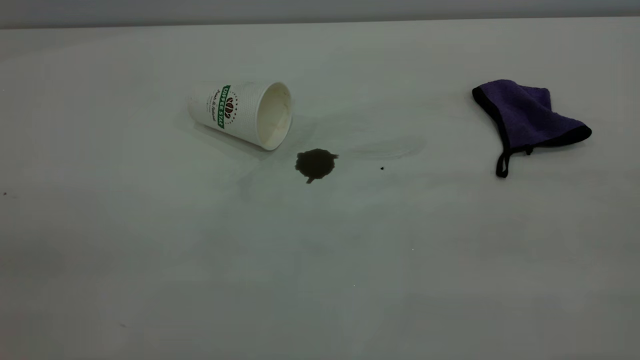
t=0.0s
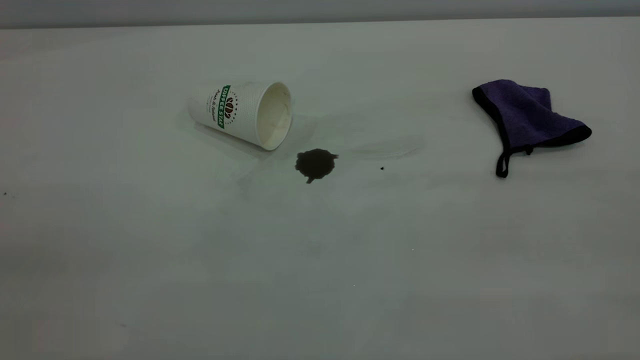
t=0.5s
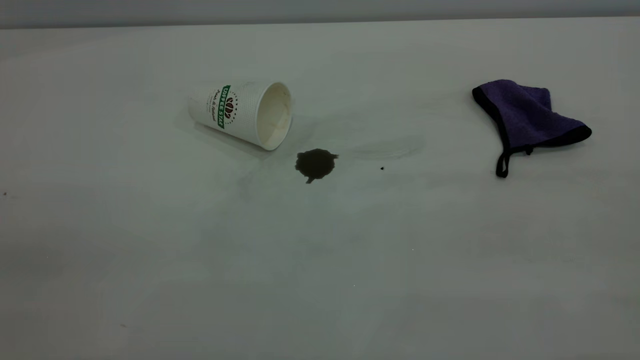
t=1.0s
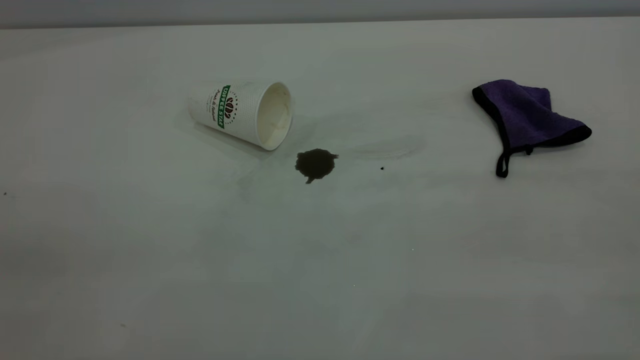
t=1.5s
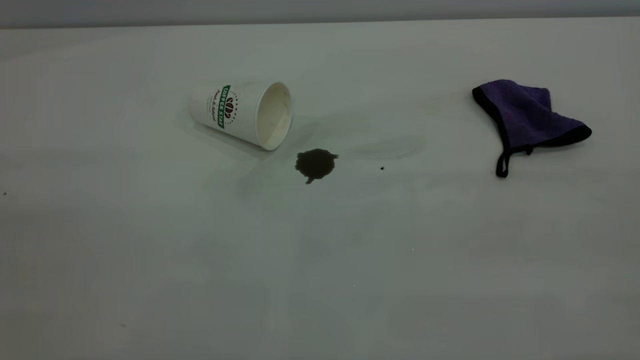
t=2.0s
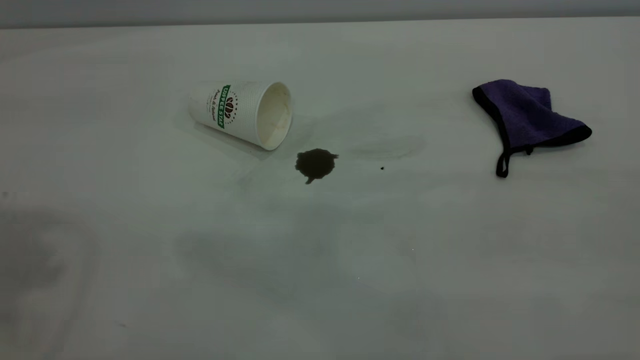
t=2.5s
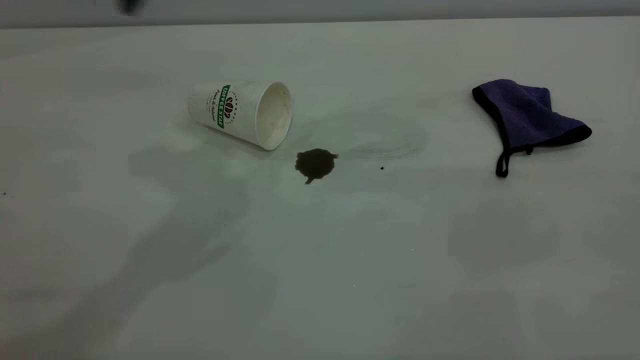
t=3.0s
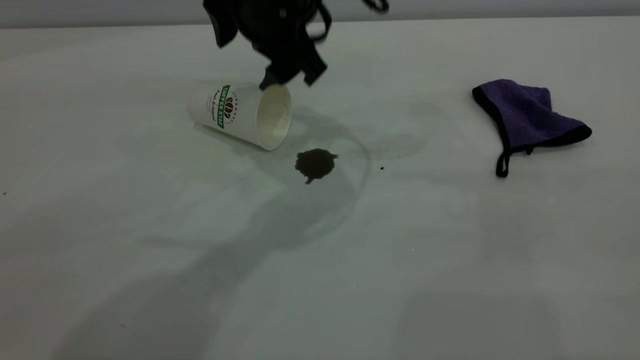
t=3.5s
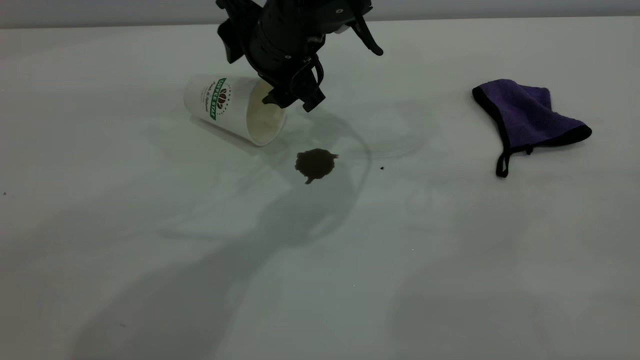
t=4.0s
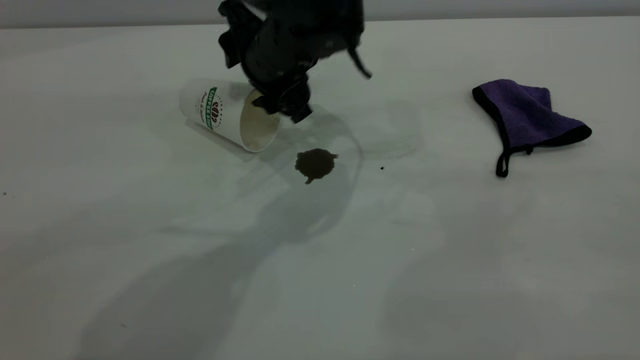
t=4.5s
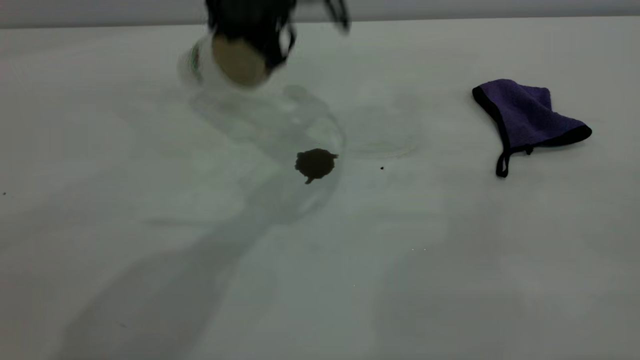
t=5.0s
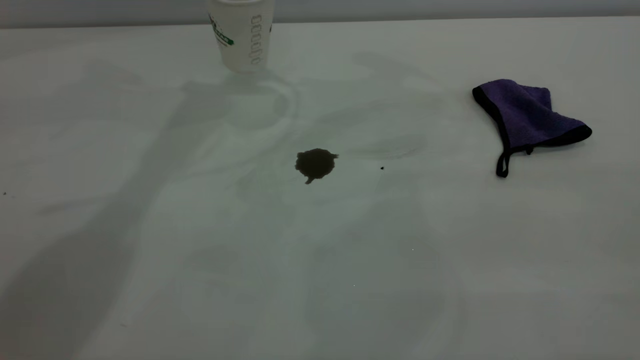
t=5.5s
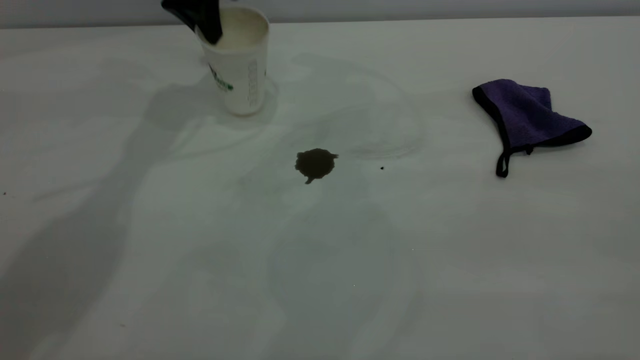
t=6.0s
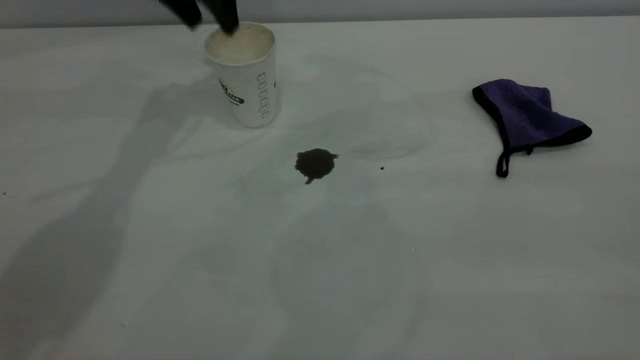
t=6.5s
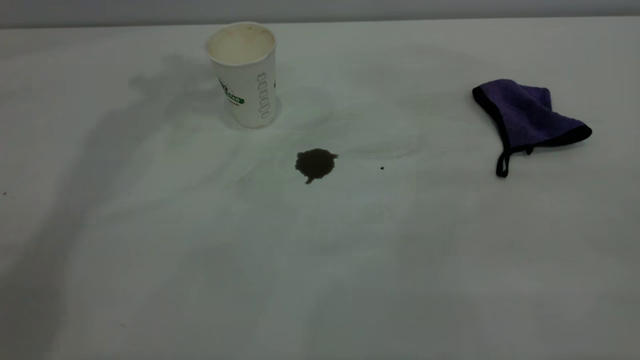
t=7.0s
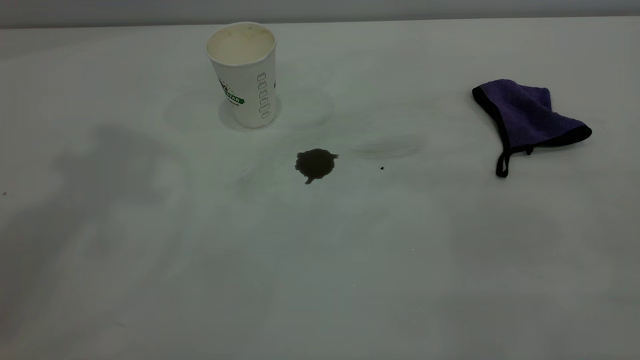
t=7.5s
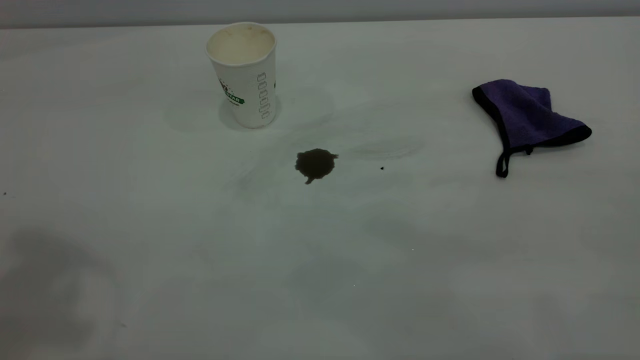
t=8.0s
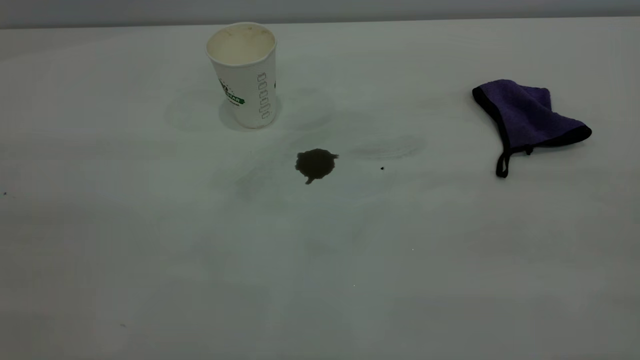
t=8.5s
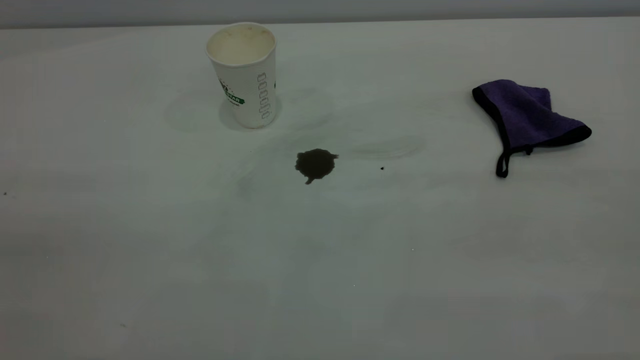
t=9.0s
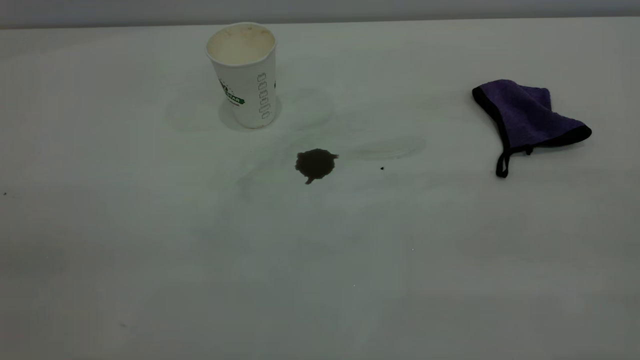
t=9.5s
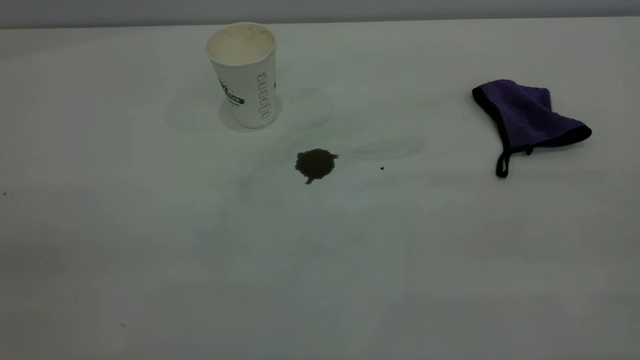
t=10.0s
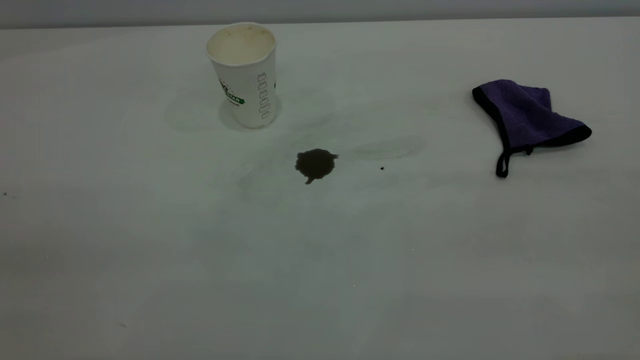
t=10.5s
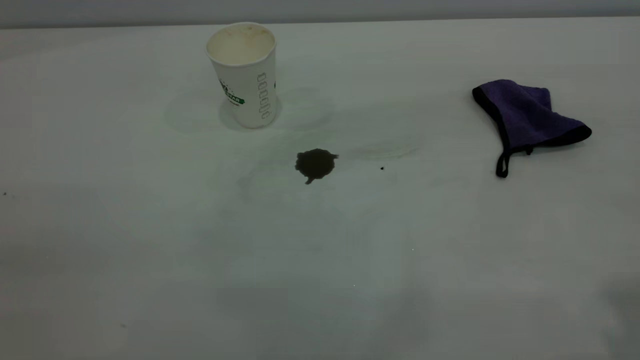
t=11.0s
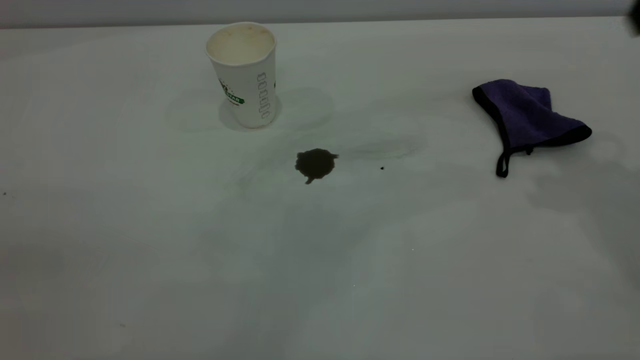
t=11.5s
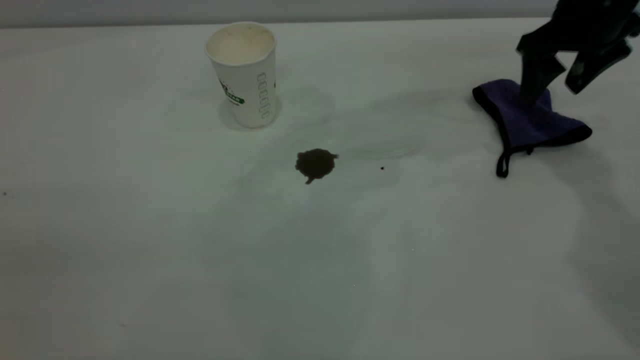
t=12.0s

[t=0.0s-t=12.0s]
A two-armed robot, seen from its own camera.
Task of the whole recording: the left gripper pick up the fallen cup and place it upright, the right gripper grasp the purple rag and wipe the coffee stain on the table, the right gripper put the purple rag back in its original position.
Step, t=0.0s to t=6.0s: Stand the paper cup upright.
t=2.0s to t=4.0s: The left gripper shifts approximately 50 cm forward, to the right and downward.
t=4.0s to t=6.0s: The left gripper shifts approximately 20 cm to the left and forward, and closes.
t=6.0s to t=8.0s: The left gripper moves backward and upward, approximately 40 cm, and opens its fingers.
t=10.0s to t=12.0s: The right gripper travels forward and downward by some 50 cm.

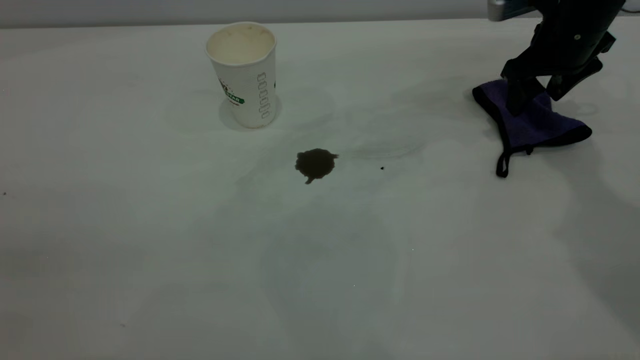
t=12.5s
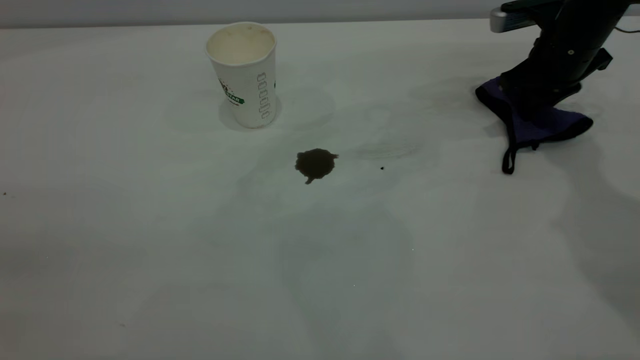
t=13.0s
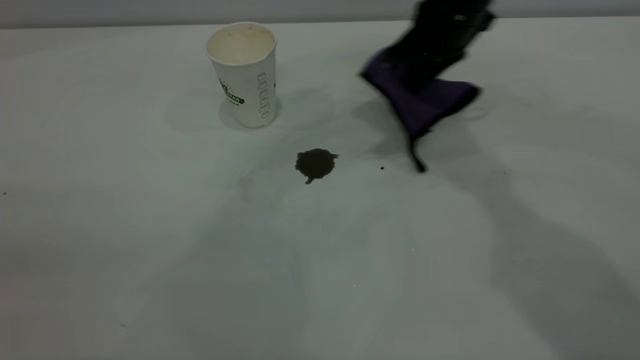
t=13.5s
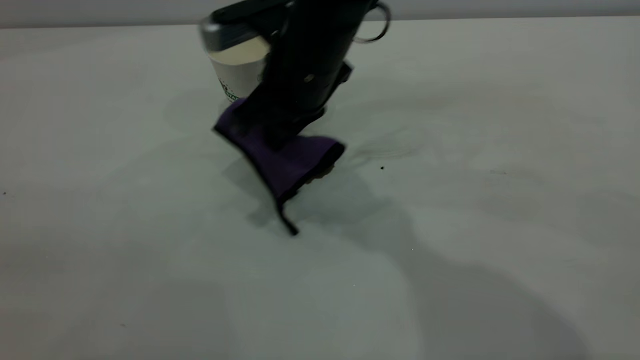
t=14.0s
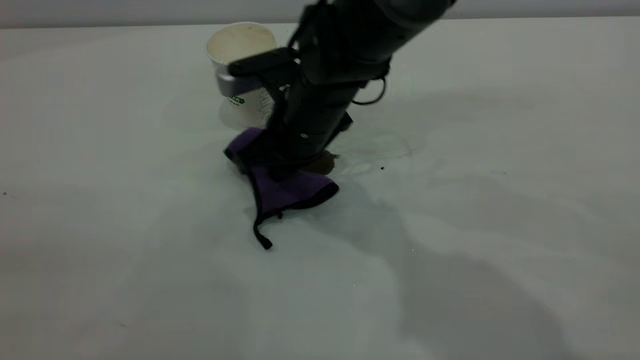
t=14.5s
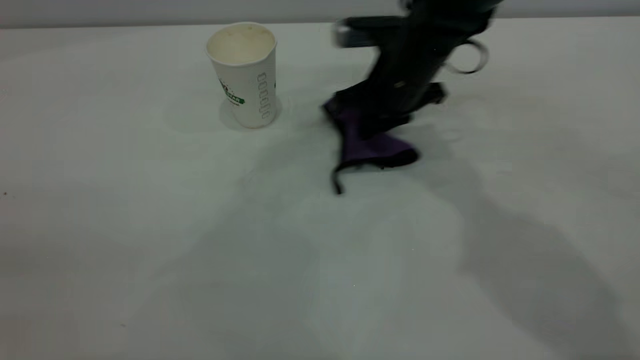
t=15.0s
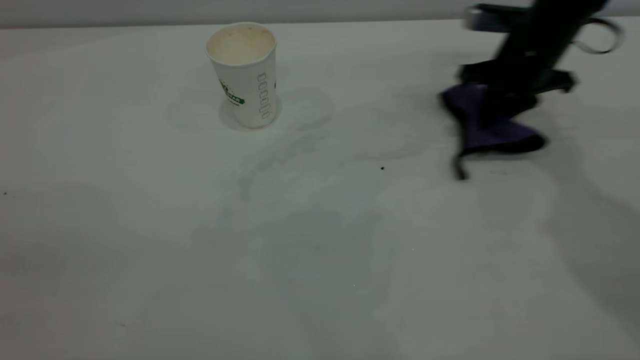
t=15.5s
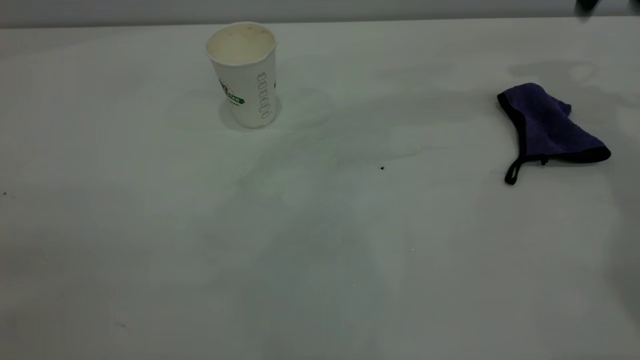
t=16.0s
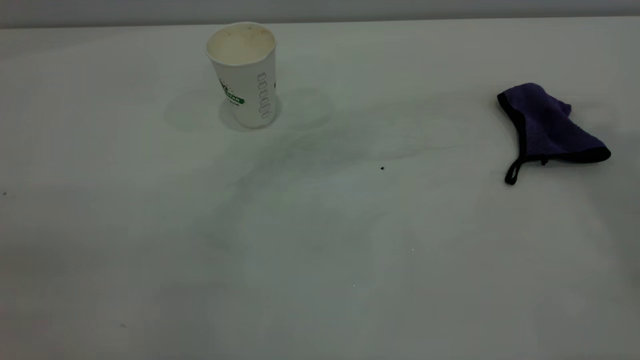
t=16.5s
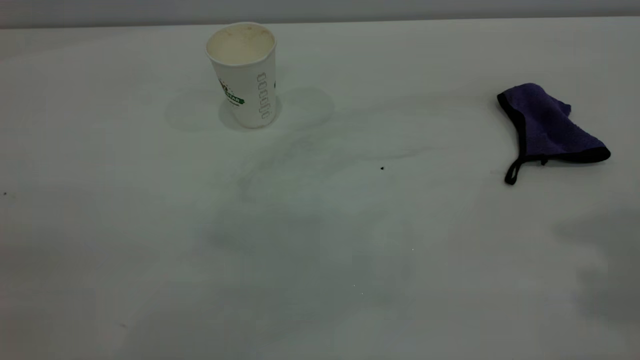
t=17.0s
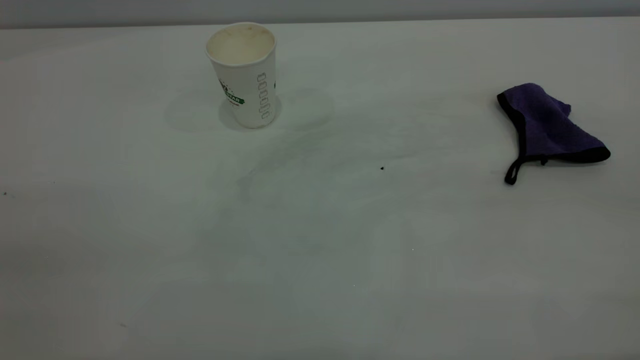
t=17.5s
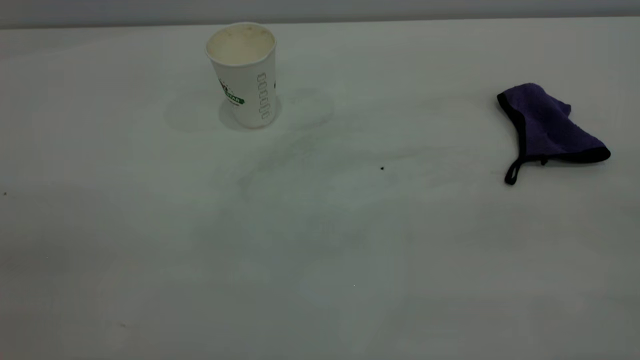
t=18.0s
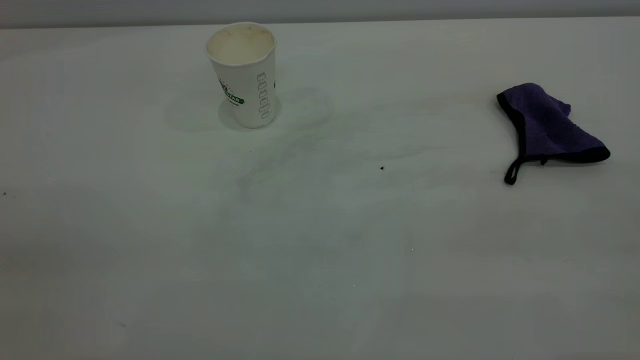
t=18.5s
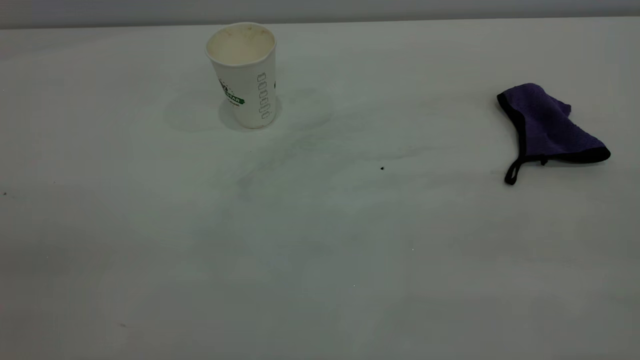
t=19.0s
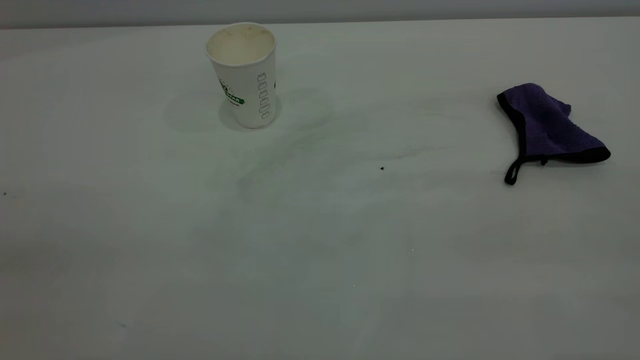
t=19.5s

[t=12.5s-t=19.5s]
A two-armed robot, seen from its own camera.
Task of the whole recording: the left gripper pick up the fallen cup and place it upright, the right gripper grasp the purple rag and wipe the coffee stain on the table, the right gripper put the purple rag back in its original position.
Step, t=12.5s to t=15.5s: Wipe the stains off the table with a rag.
t=12.5s to t=14.5s: The right gripper goes about 30 cm to the left, and closes.
t=14.5s to t=16.0s: The right gripper shifts about 40 cm to the right and upward, and opens up.

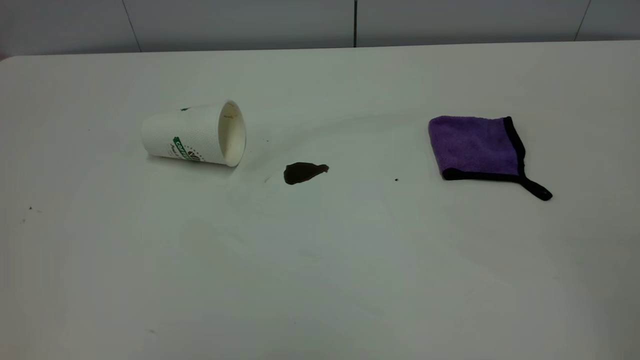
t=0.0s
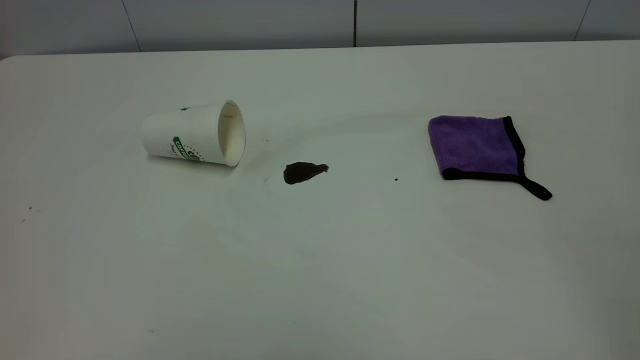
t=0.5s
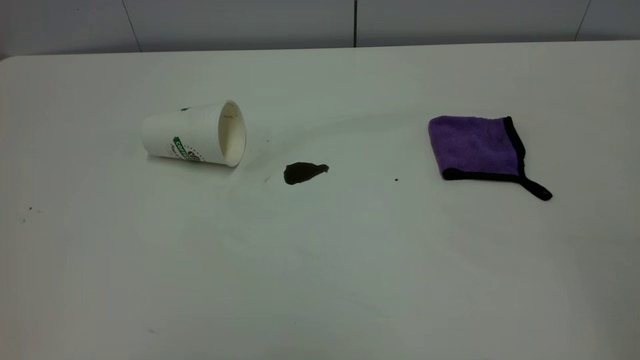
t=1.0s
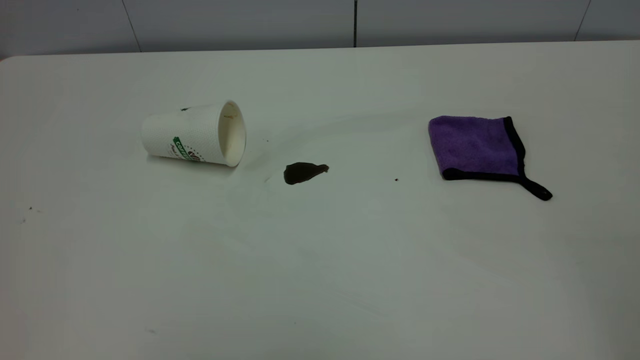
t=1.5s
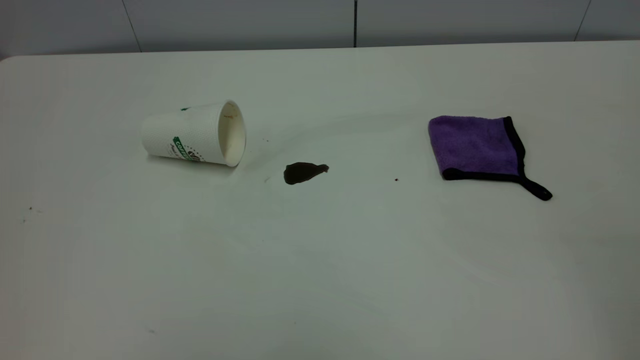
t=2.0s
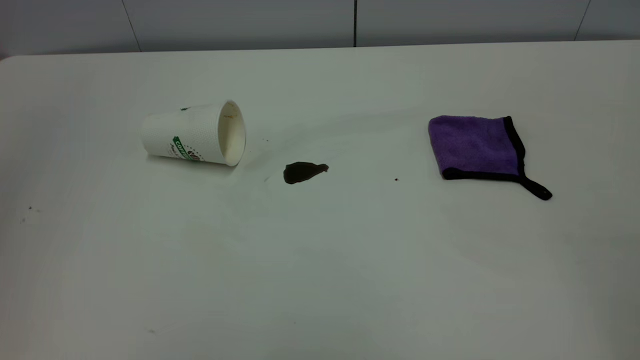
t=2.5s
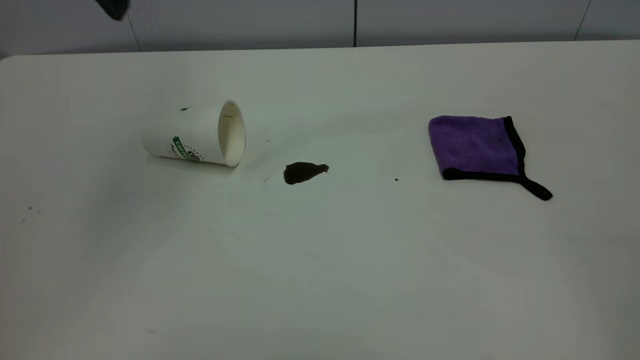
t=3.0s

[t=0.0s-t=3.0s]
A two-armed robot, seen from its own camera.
Task of the whole recording: the left gripper pick up the fallen cup and place it upright, the right gripper grasp the purple rag and wipe the coffee stain on the table, the right gripper put the purple rag back in its original position.
t=0.0s to t=1.5s: Both grippers stay put.
t=1.5s to t=3.0s: The left gripper travels forward by about 35 cm, and opens its fingers.
